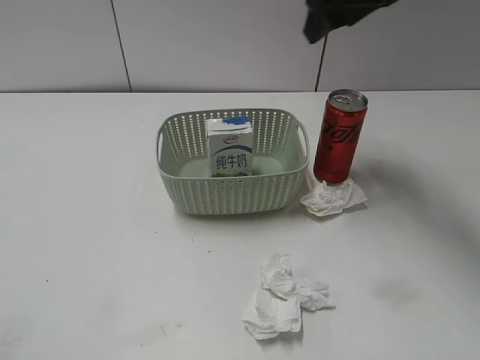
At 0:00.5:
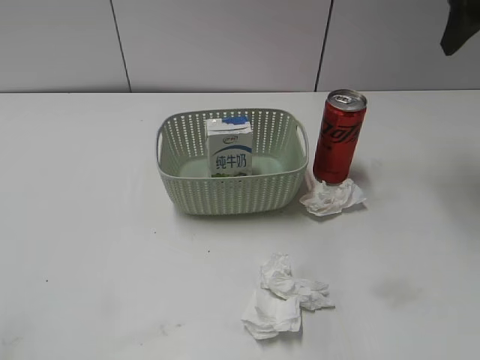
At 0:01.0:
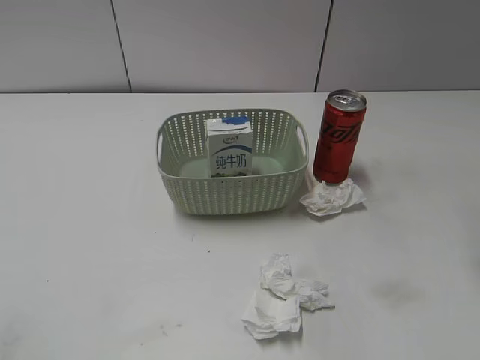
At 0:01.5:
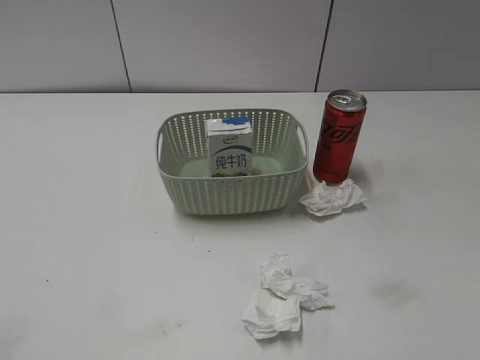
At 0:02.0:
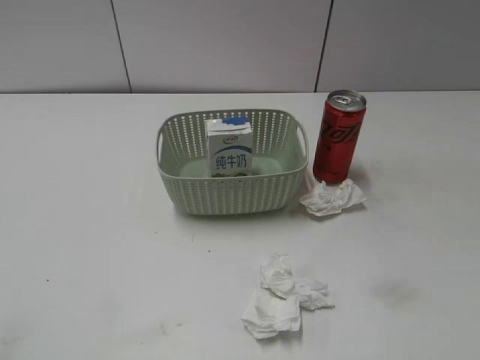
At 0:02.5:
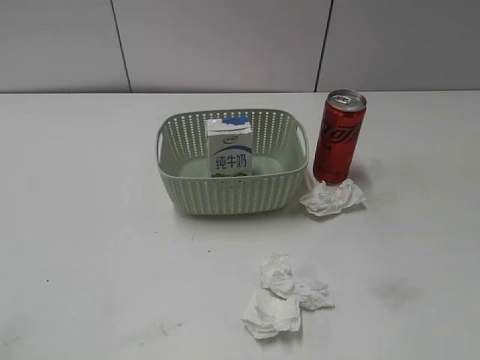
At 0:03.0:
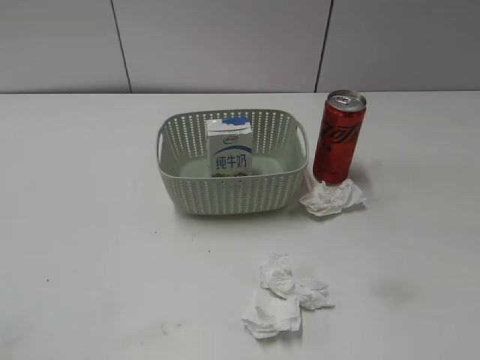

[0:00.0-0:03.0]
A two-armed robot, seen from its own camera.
0:00.0 to 0:01.5: The right gripper heads backward and to the right, covering approximately 30 cm.
